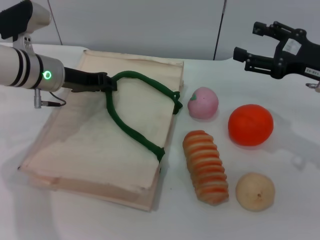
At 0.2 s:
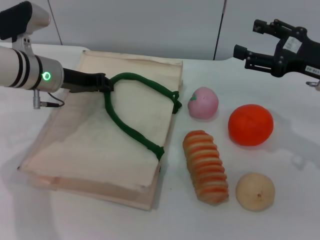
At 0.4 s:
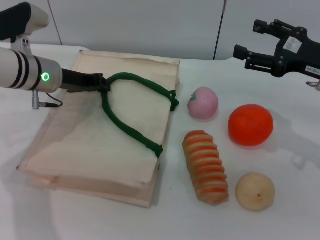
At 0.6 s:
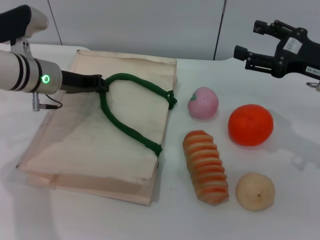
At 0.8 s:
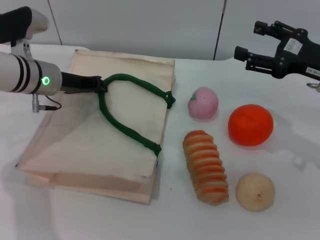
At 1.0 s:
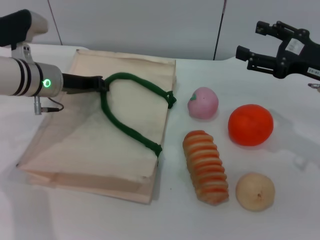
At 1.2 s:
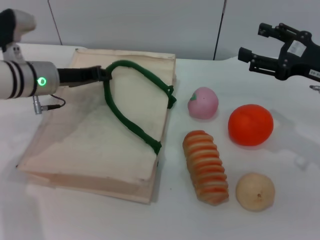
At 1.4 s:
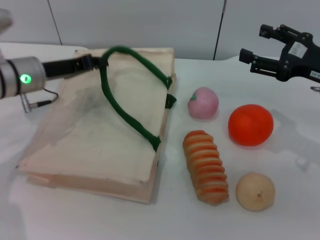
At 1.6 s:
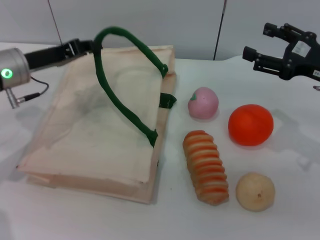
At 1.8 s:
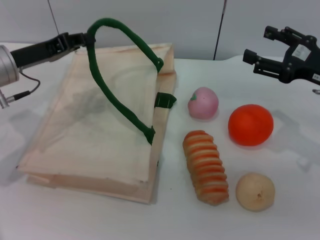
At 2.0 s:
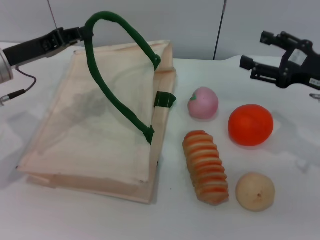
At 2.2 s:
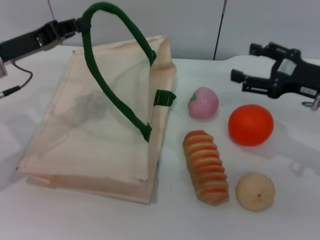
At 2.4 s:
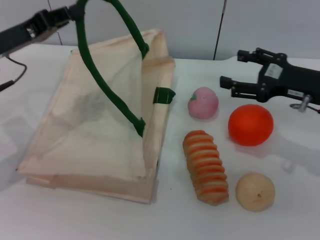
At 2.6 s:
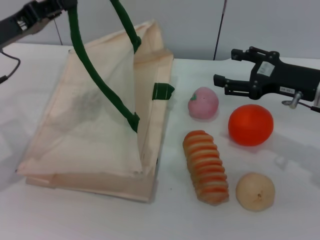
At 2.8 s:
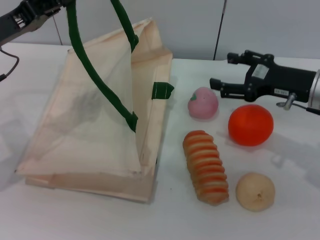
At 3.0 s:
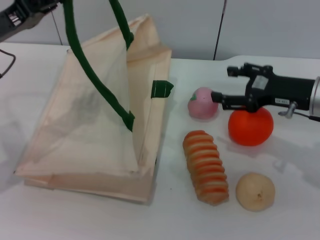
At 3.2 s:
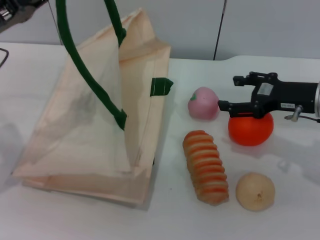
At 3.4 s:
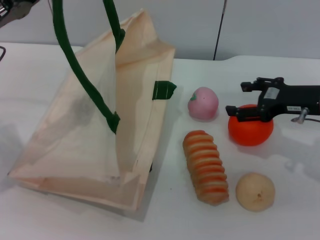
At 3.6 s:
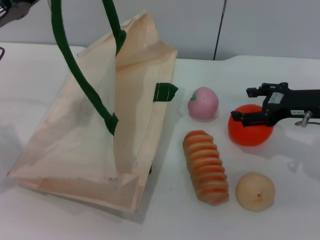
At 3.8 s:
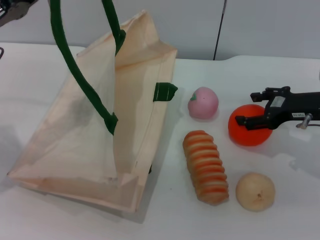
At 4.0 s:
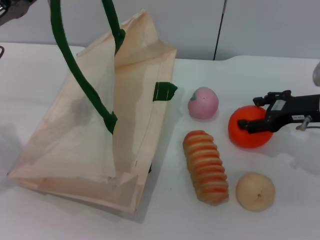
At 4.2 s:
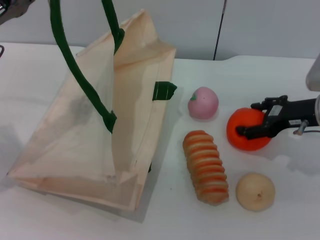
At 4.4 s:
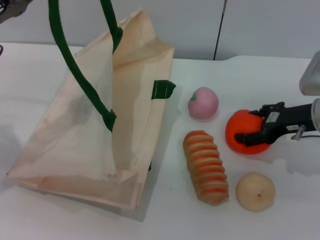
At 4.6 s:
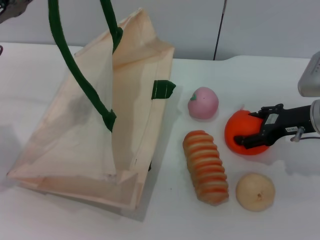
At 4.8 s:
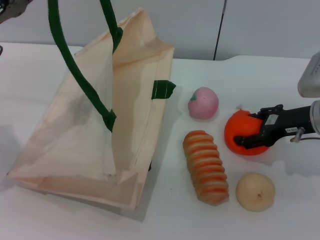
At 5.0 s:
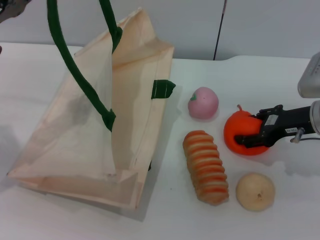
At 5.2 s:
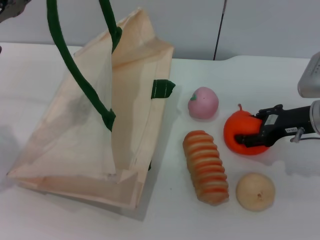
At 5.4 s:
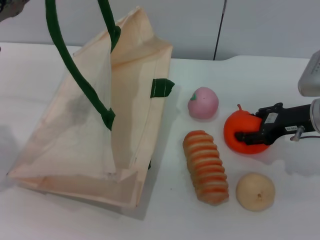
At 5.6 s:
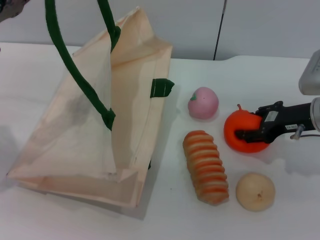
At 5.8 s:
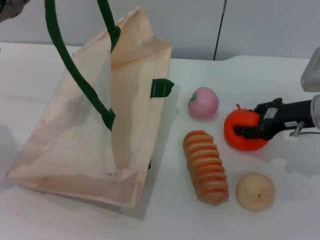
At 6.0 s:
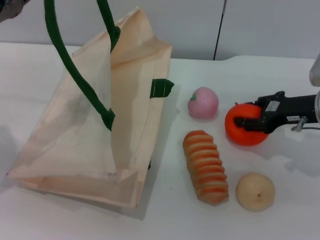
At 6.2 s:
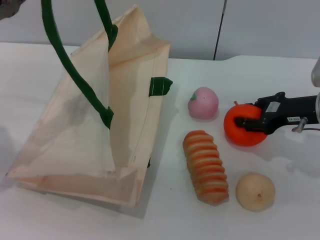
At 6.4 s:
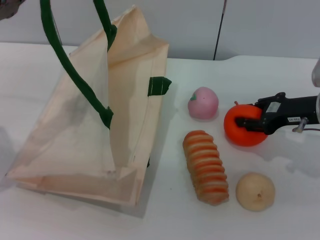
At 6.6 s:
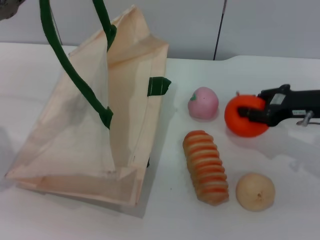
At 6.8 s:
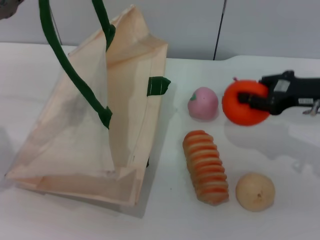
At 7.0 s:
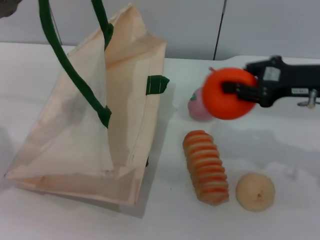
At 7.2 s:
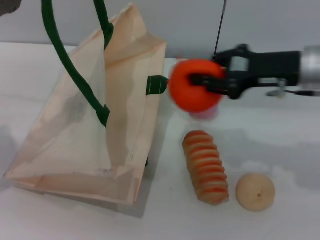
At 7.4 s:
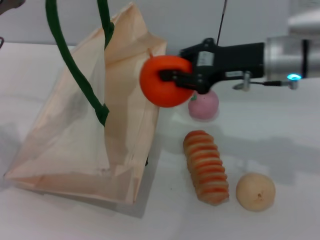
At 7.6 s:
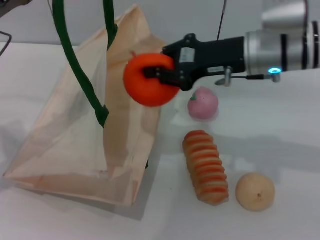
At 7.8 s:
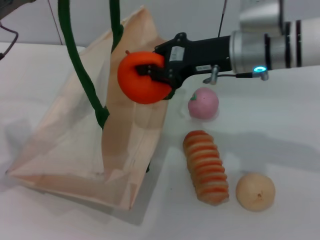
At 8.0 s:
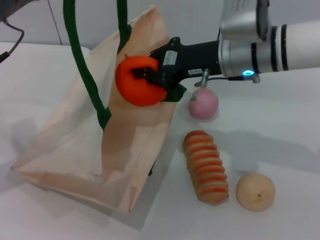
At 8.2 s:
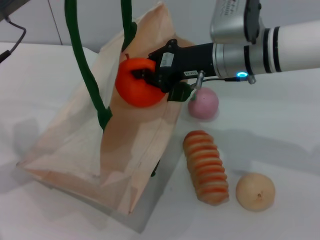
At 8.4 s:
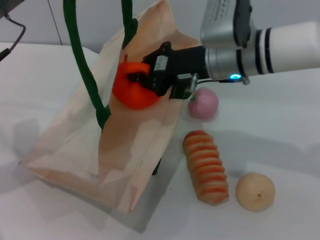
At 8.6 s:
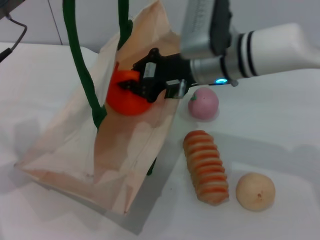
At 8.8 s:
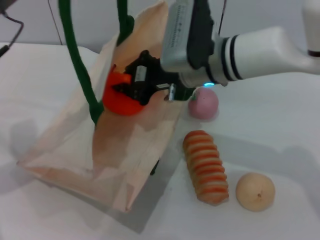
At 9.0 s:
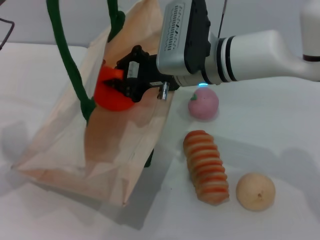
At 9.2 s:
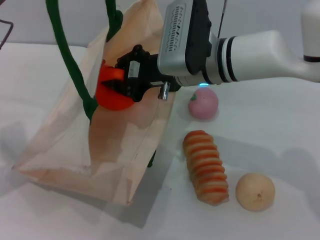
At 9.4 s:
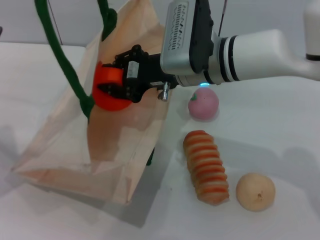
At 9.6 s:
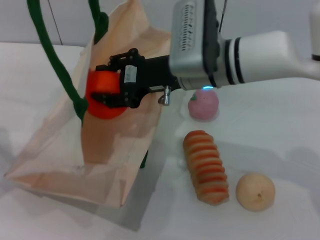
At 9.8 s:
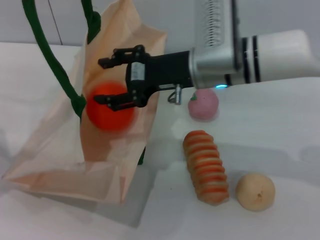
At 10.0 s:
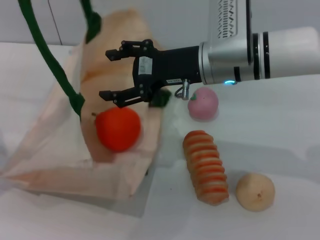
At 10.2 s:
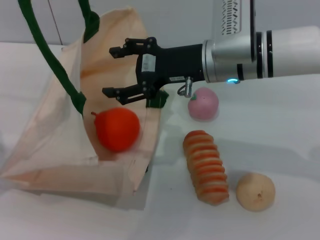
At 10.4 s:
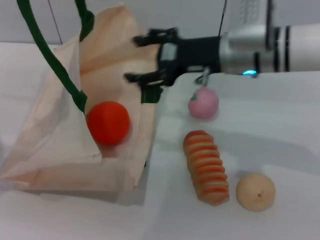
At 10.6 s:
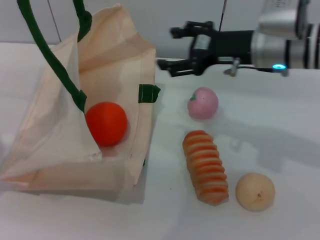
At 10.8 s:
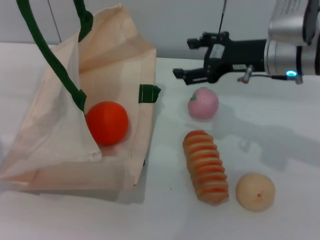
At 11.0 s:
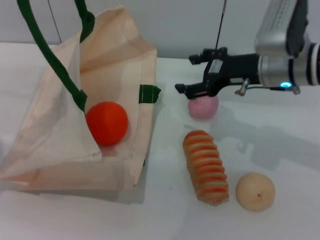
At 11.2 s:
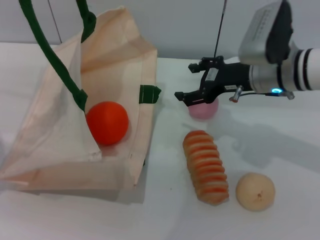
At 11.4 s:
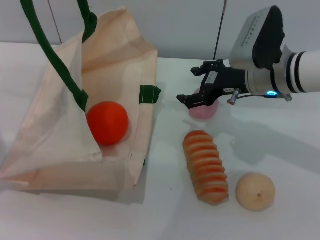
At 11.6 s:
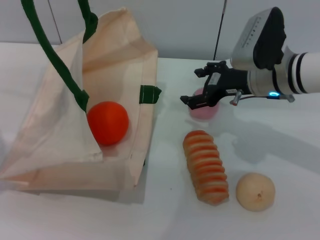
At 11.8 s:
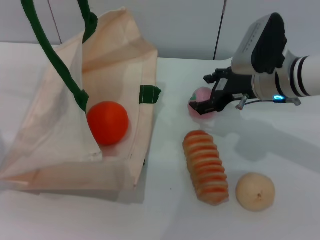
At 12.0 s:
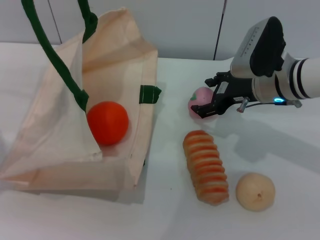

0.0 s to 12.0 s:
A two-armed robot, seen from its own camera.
Task of the whole recording: pick up the orange and peach from the table and place it in the white handbag.
Step, 0.0 to 2.0 s: Lift the woven bag with the left gripper to open it.
Step, 2.2 to 6.8 s: Pick up the orange with the right gripper.
Step, 7.0 to 10.6 s: Place the orange into the woven bag with the right gripper.
0.0 to 1.6 s: The left gripper moves roughly 5 cm, and closes its fingers.
1.6 to 3.0 s: The left gripper changes place by some 5 cm.
4.4 to 6.0 s: The right gripper closes its fingers.
6.0 to 7.6 s: The right gripper heads to the left and upward, covering roughly 15 cm, and closes up.
7.6 to 9.0 s: The right gripper shifts some 10 cm to the left.
9.0 to 10.4 s: The right gripper moves to the right, about 5 cm, and opens up.
10.4 to 12.0 s: The right gripper travels downward and to the right by approximately 10 cm.

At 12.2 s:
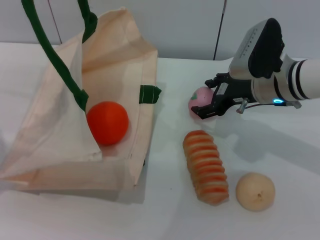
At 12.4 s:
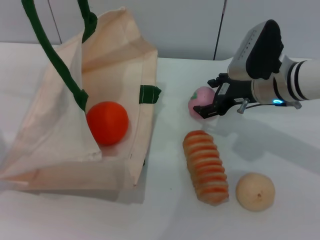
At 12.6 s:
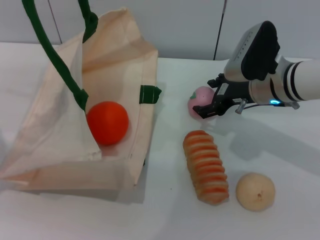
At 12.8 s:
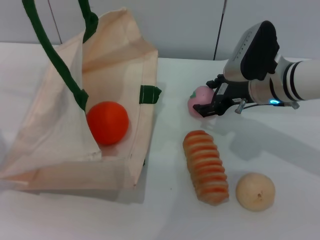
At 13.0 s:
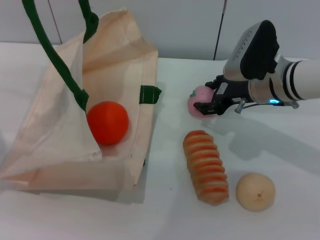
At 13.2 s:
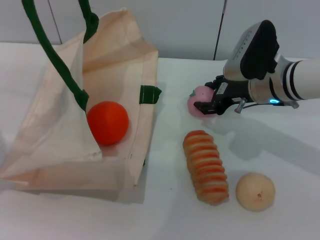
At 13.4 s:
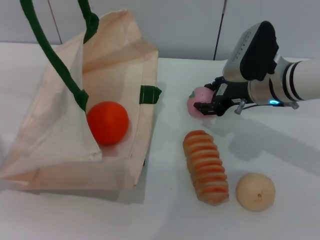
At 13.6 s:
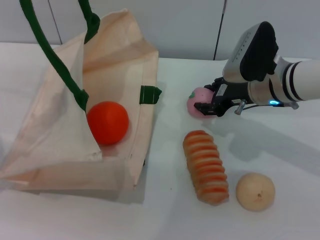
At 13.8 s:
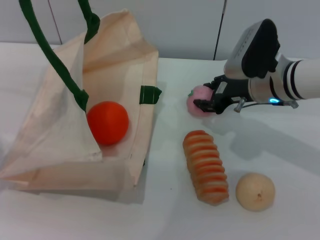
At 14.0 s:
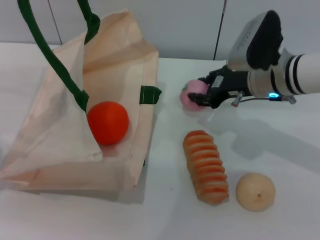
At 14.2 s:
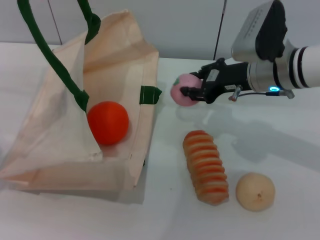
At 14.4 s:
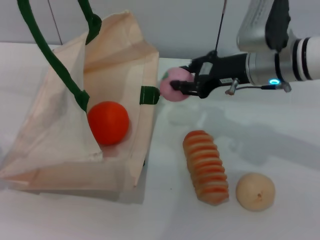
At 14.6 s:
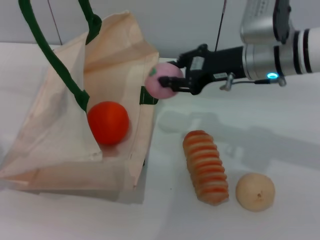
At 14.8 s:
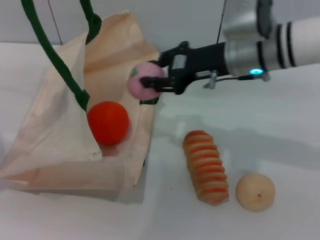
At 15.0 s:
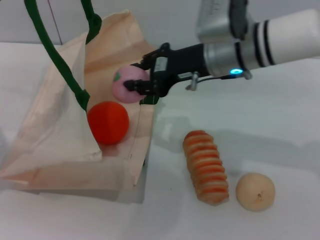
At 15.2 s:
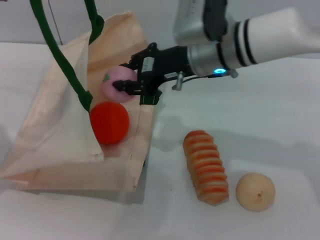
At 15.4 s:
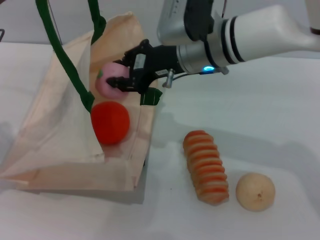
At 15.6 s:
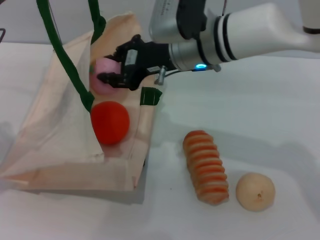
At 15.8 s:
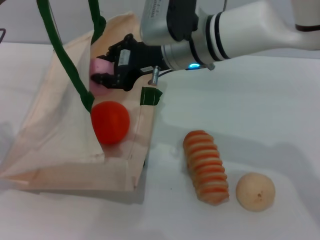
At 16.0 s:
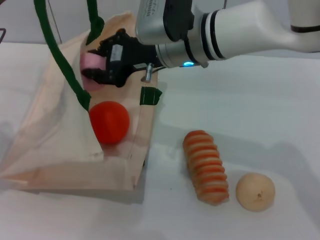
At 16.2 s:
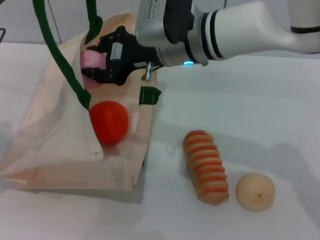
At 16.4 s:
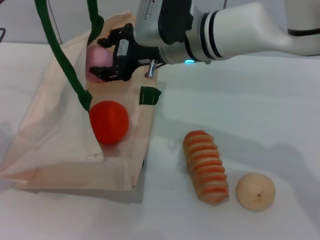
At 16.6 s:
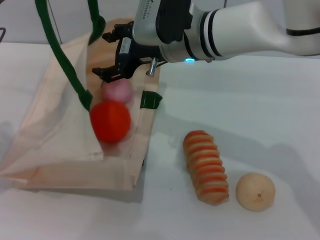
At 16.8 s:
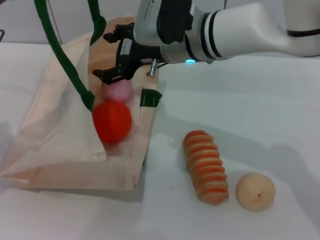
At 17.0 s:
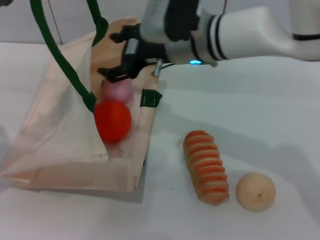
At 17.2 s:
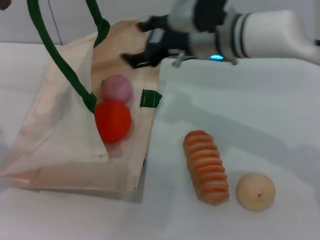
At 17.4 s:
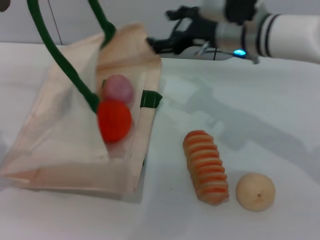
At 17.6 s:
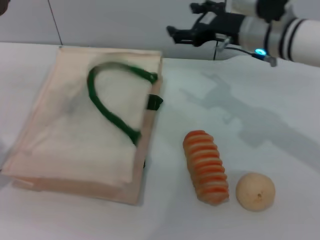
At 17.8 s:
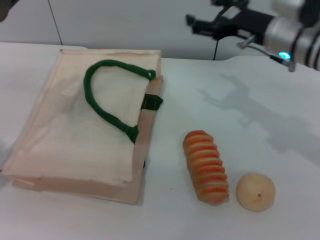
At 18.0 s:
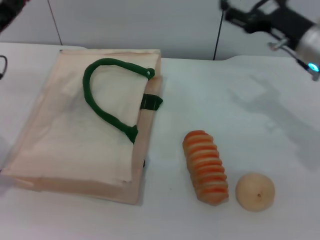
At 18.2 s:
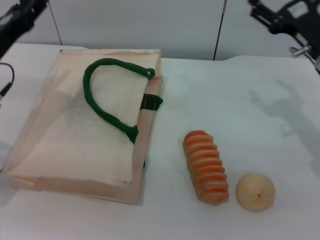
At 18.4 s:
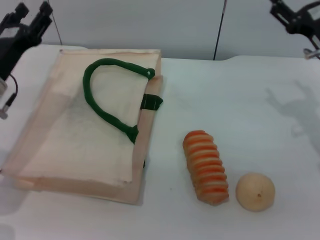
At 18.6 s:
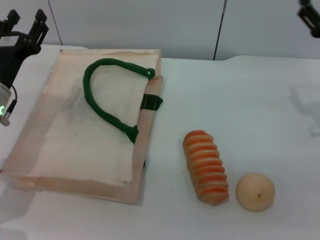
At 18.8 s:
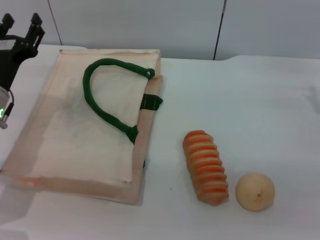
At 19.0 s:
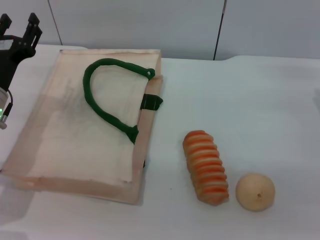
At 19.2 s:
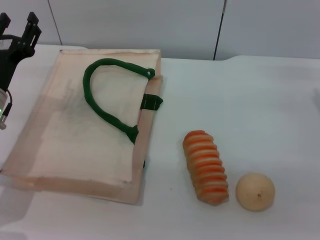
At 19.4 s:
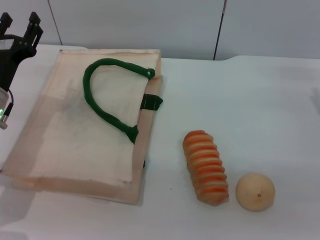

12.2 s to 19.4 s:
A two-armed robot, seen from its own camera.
Task of the whole recording: pick up the orange and peach from the table and place it in the white handbag.
Step, 12.2 to 14.4 s: Pick up the peach with the right gripper.
Step, 14.6 to 17.2 s: Place the peach into the woven bag with the right gripper.
Step, 17.4 to 18.6 s: Lower the woven bag with the left gripper to close it.
12.2 to 13.6 s: The right gripper closes.
13.6 to 15.0 s: The right gripper moves to the left and upward, approximately 10 cm.
15.0 to 16.6 s: The right gripper shifts about 5 cm to the left.
16.6 to 18.0 s: The left gripper opens. Meanwhile the right gripper is displaced to the right by approximately 20 cm.
18.0 to 19.4 s: The right gripper heads to the right, downward and backward, covering approximately 10 cm; the left gripper goes approximately 5 cm downward.
